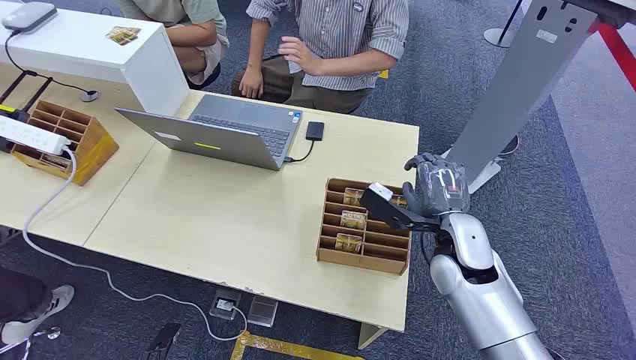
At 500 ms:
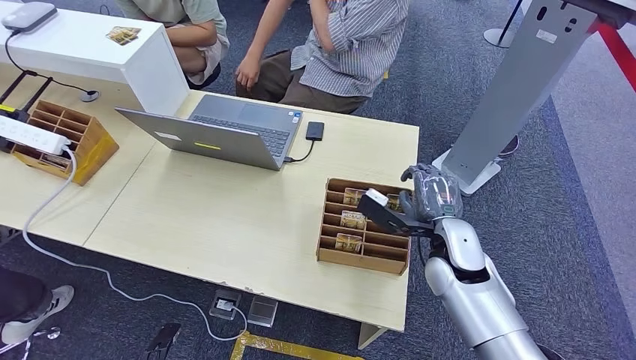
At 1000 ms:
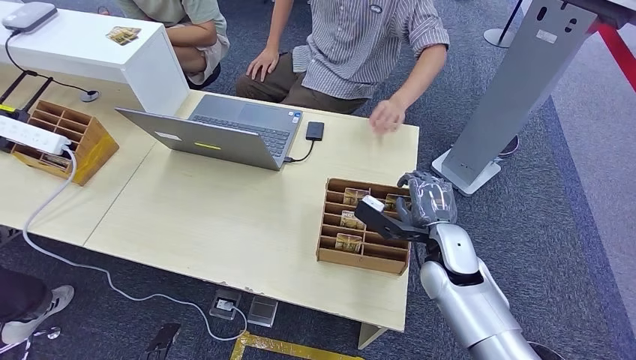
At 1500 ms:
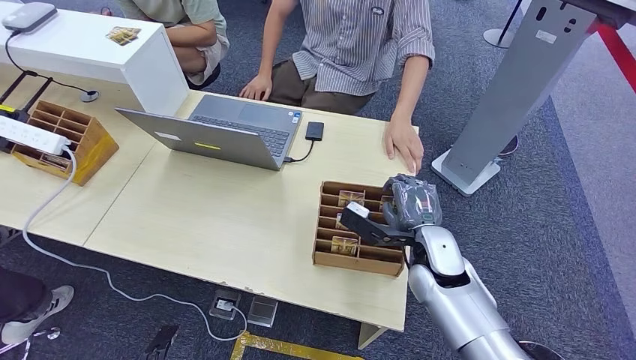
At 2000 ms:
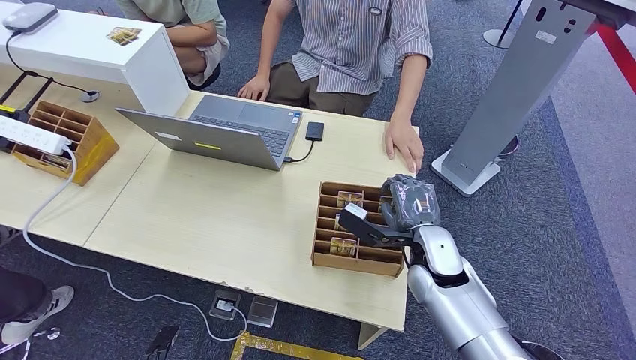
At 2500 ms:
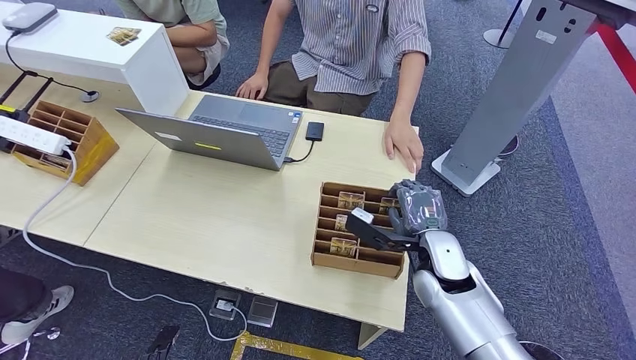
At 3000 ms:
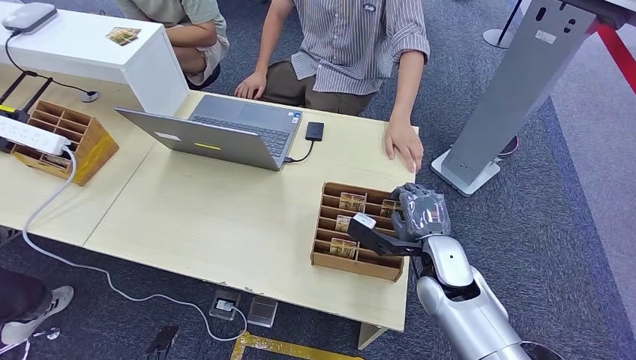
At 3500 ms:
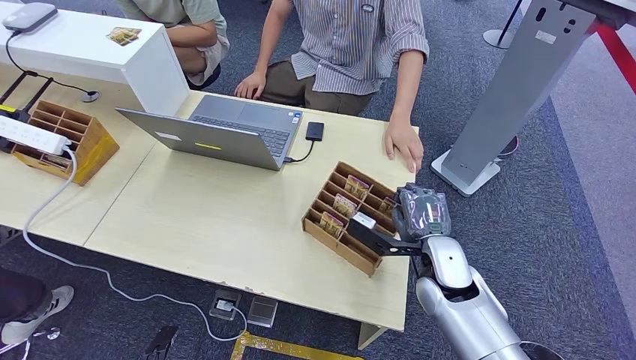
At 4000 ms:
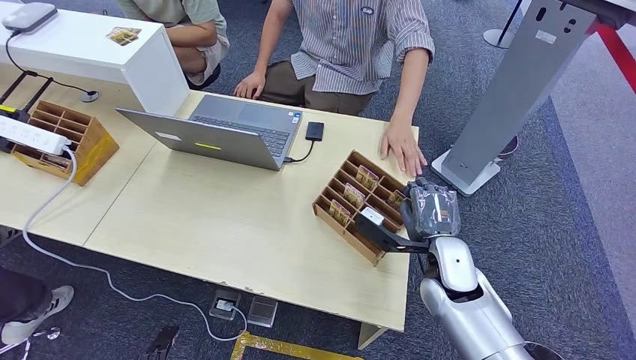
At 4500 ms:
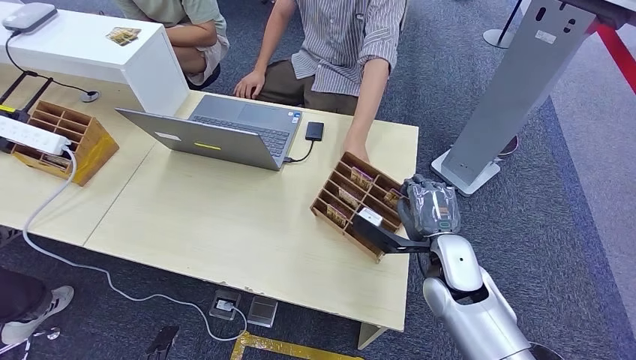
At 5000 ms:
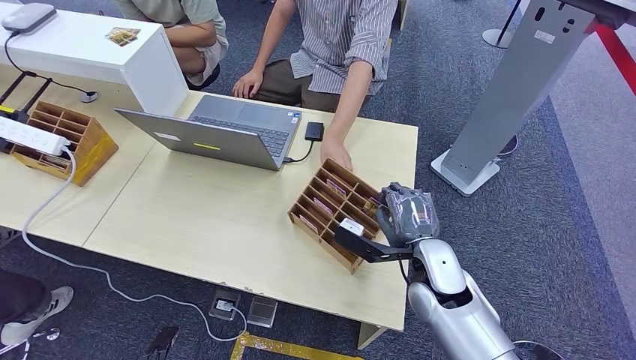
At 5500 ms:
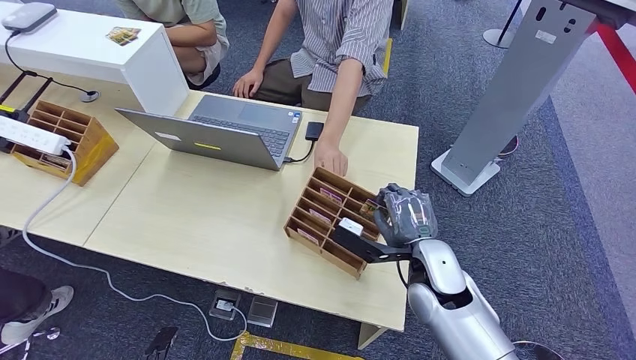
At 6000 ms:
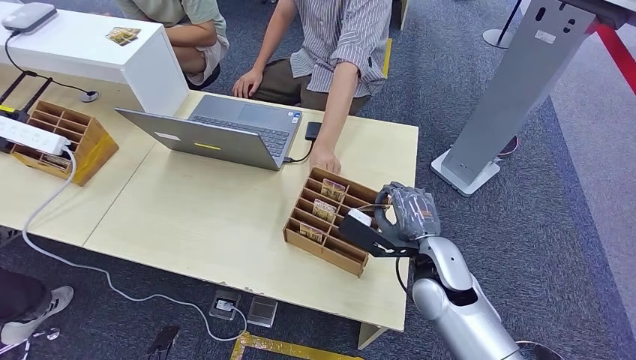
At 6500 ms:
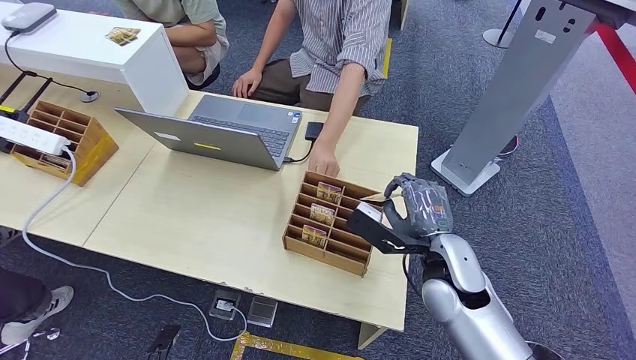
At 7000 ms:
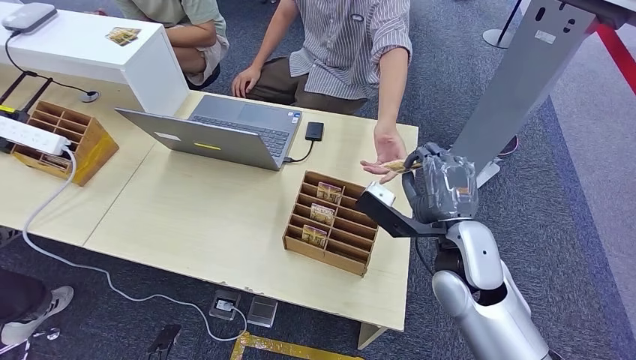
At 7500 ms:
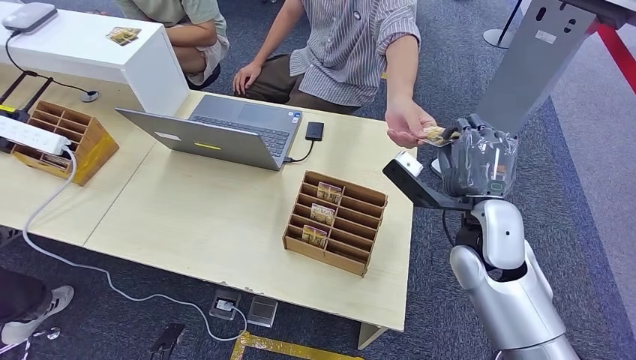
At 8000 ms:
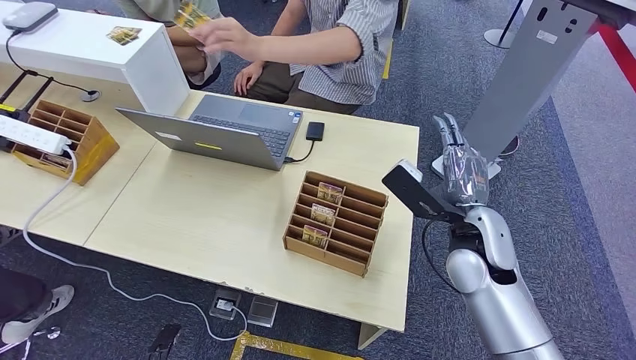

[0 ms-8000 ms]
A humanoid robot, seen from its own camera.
Step, 0 ms to 5000 ms: Pick up the room card from the card holder.
Step, 7000 ms to 8000 ms: Hand the room card to the target.
2000 ms to 4000 ms: The hands stay close to where they were, moving slightly.
6000 ms to 8000 ms: The right hand moves upward and to the right, approximately 10 cm.

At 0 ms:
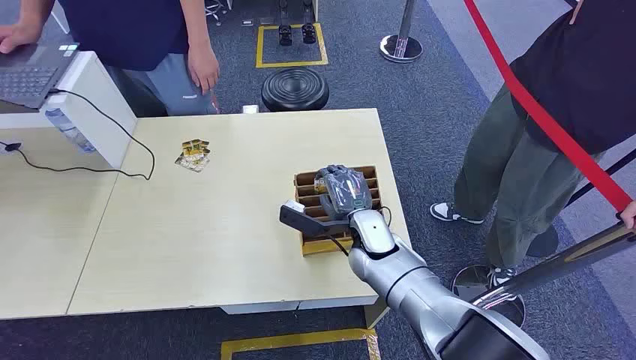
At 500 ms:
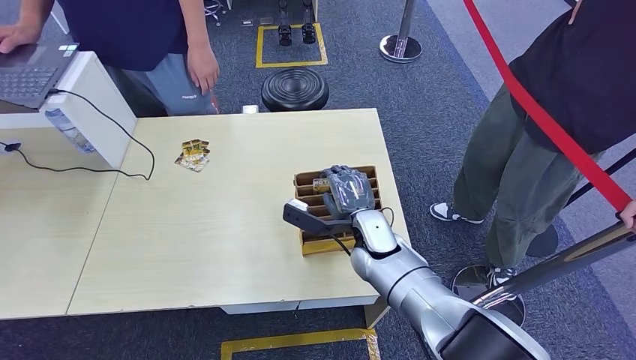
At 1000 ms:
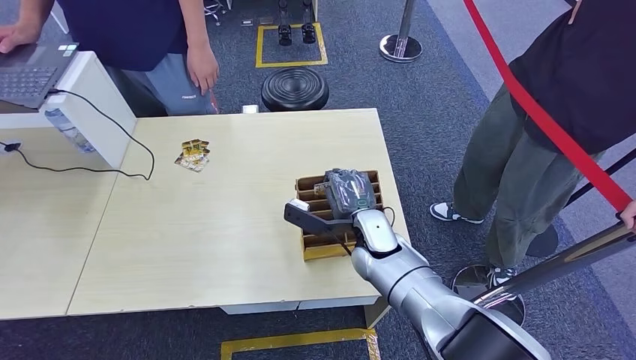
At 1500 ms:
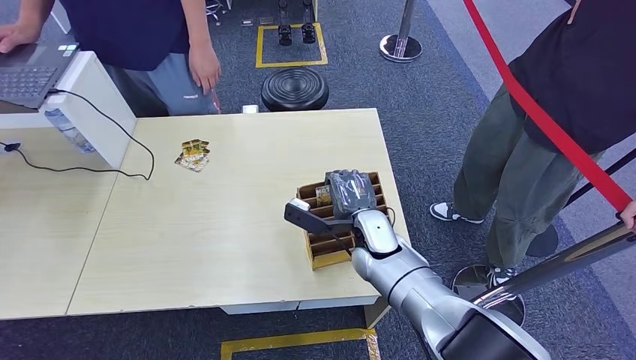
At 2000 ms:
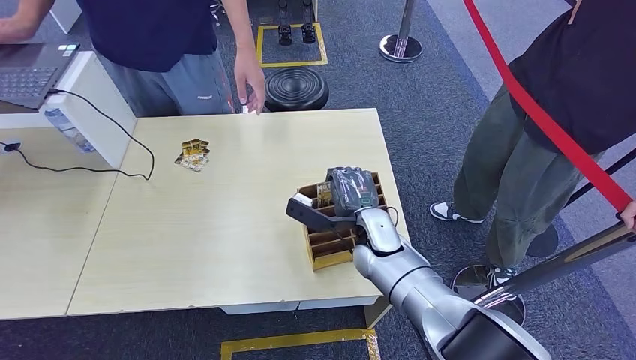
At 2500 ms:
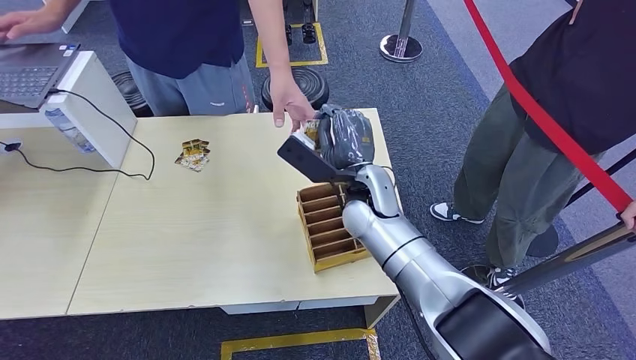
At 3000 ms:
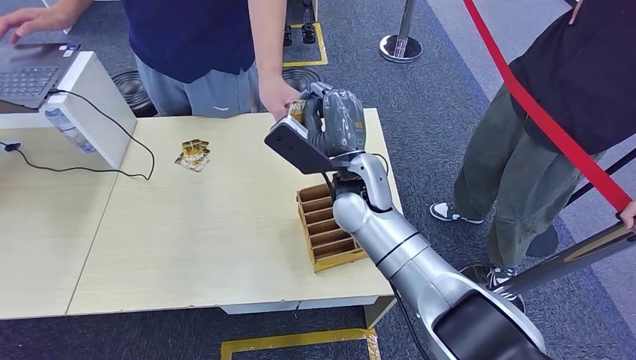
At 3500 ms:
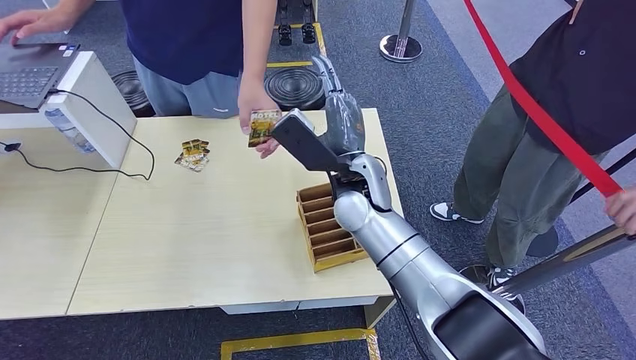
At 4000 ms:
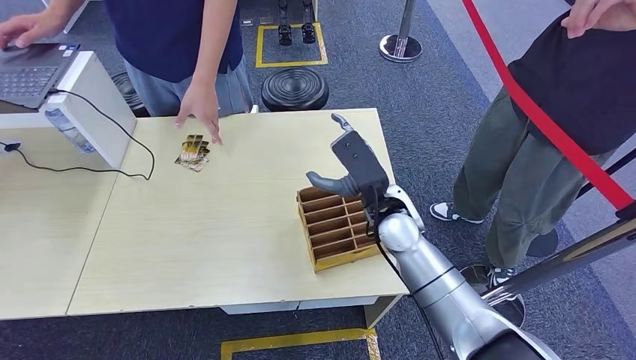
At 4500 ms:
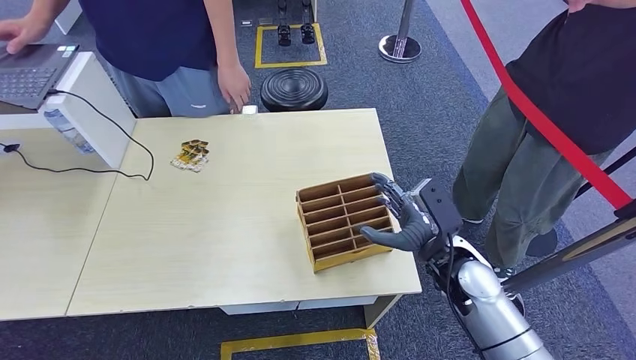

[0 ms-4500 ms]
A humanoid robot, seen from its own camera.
Step, 0 ms to 2500 ms: Pick up the room card from the card holder.
Step, 3500 ms to 4500 ms: Hand the room card to the target.
2000 ms to 4500 ms: The right hand shifts approximately 20 cm to the right and backward.
